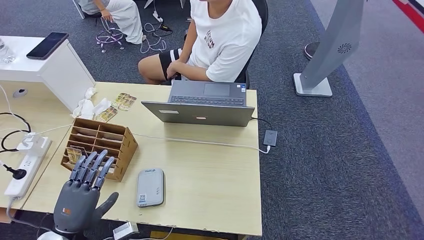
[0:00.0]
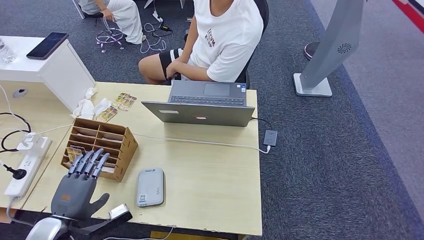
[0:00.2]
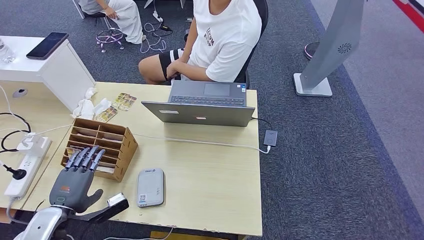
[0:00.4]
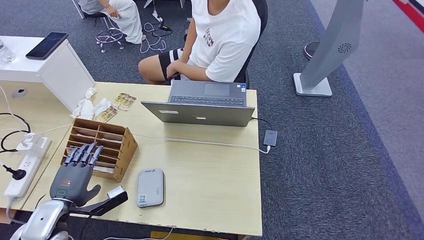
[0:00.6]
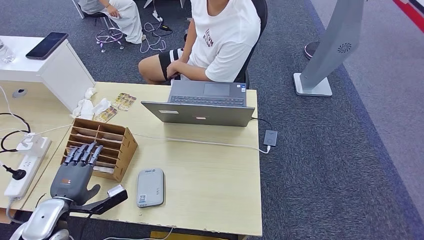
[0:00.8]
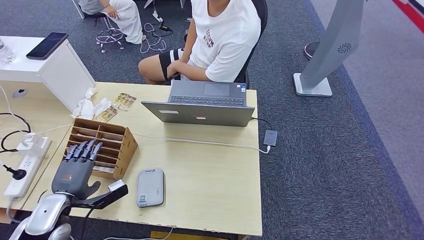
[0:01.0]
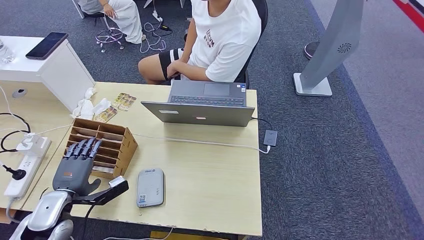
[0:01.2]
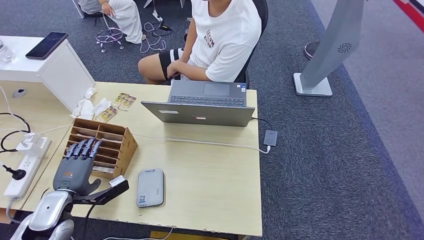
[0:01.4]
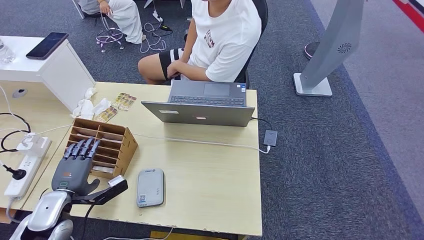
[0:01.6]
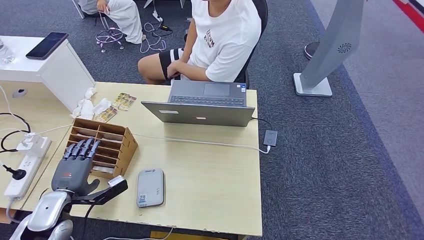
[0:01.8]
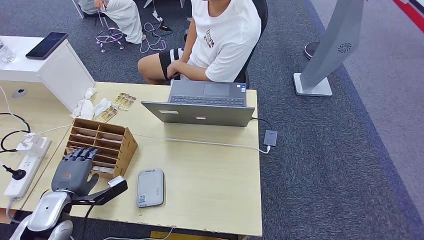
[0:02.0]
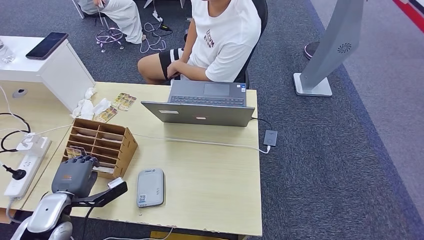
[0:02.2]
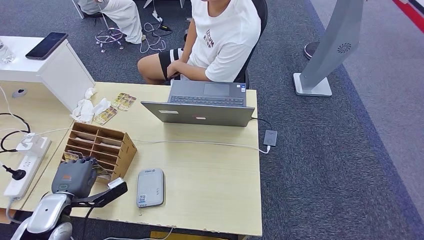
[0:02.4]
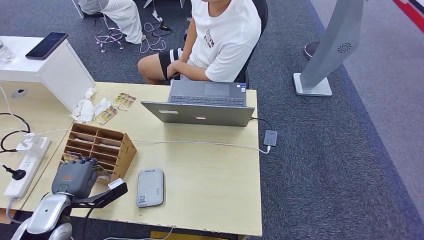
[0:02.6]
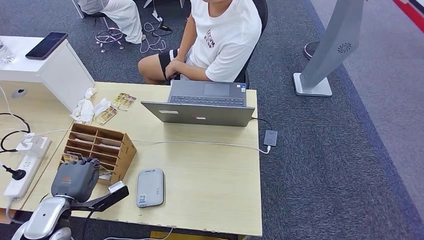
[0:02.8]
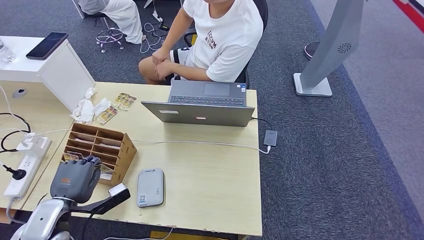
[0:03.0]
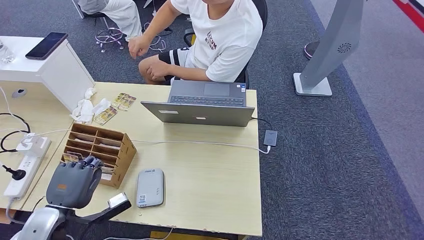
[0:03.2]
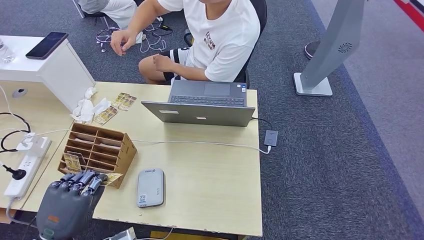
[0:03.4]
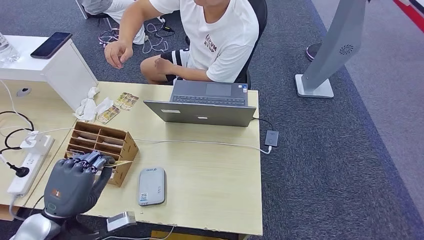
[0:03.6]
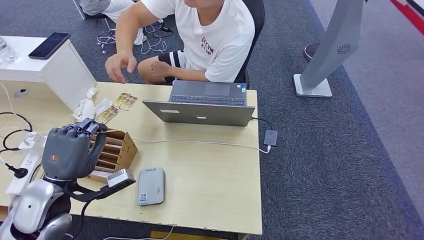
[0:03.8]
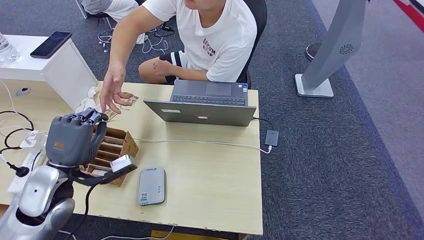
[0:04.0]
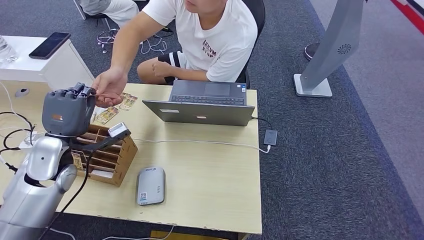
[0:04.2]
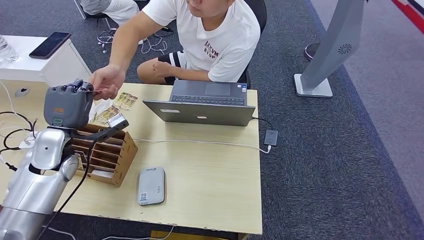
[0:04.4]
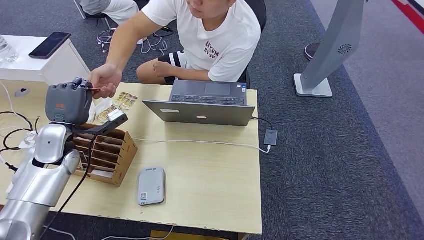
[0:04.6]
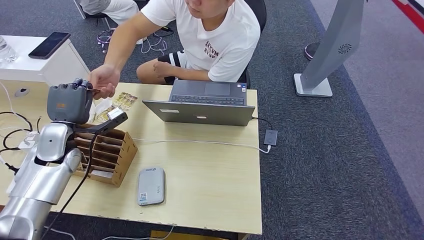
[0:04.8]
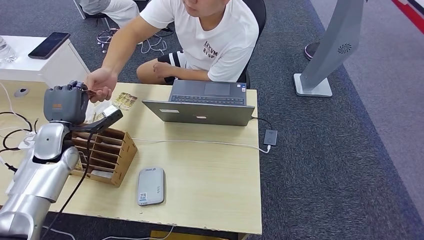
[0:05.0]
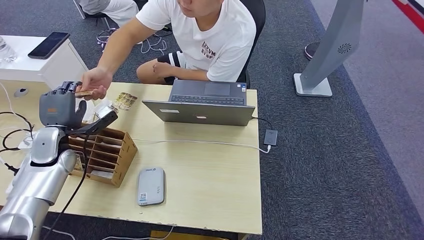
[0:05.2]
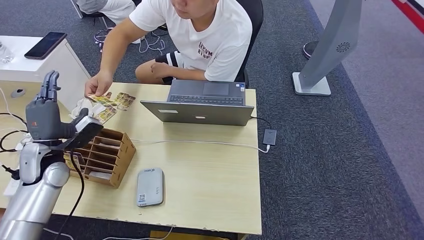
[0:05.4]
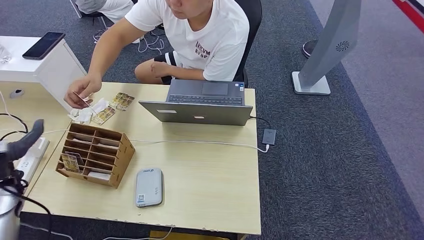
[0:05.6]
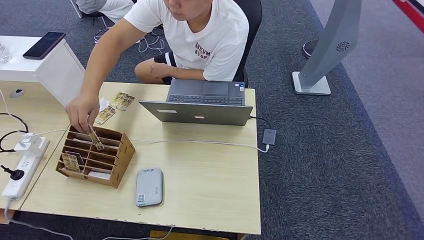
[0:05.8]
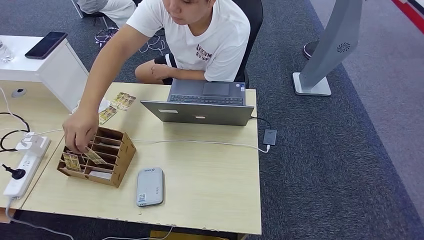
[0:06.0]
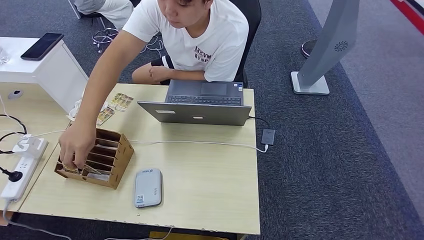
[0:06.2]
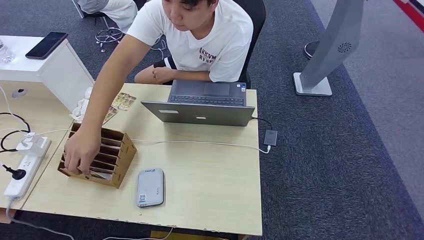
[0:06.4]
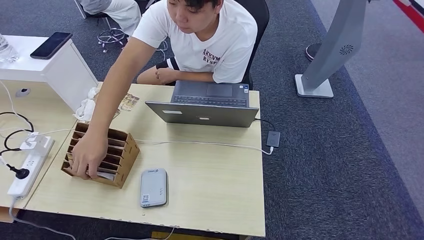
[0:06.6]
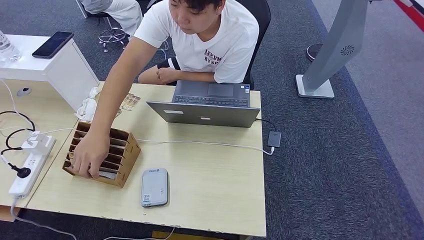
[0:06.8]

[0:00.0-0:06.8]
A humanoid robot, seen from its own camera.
Step, 0:00.0 to 0:03.4: Pick up the room key from the key card box.
Step, 0:03.6 to 0:06.8: Hand the room key to the person.
0:00.0 to 0:01.4: The left hand shifts about 10 cm forward and to the left.
0:01.4 to 0:02.8: The hands move only a little.
